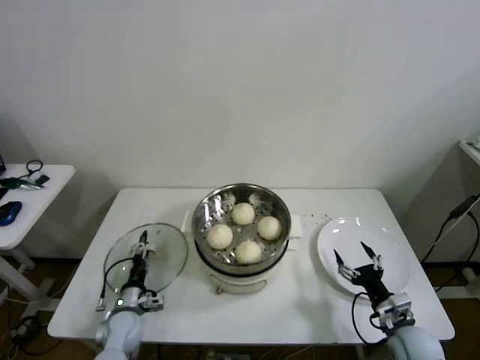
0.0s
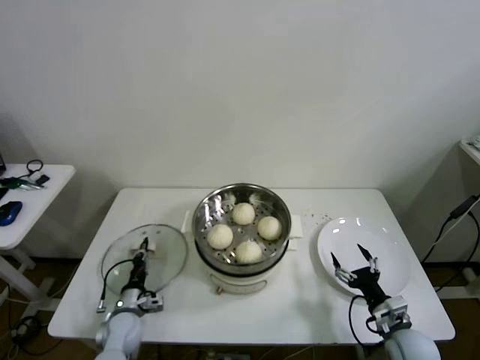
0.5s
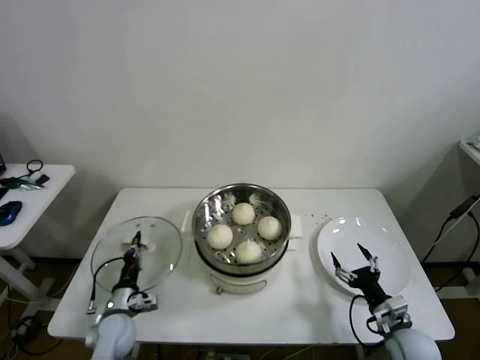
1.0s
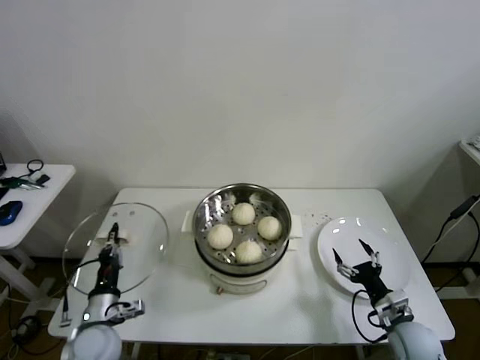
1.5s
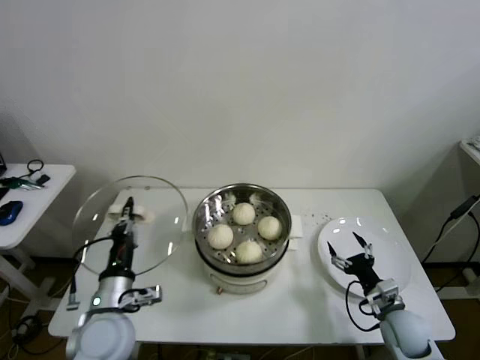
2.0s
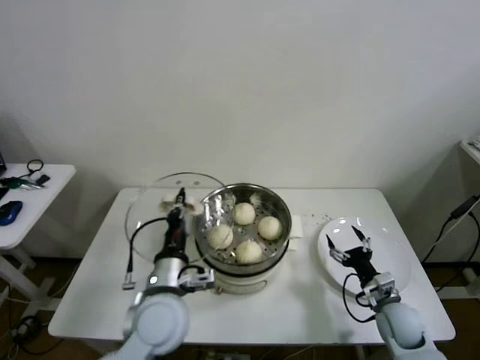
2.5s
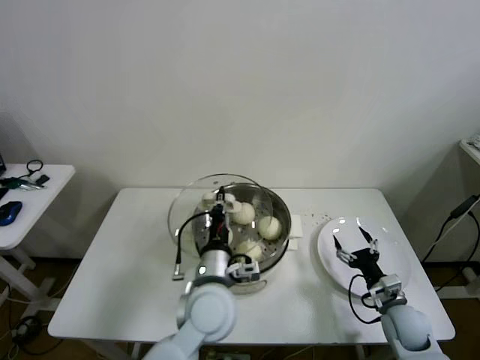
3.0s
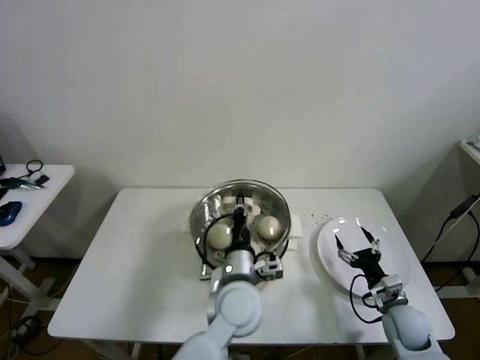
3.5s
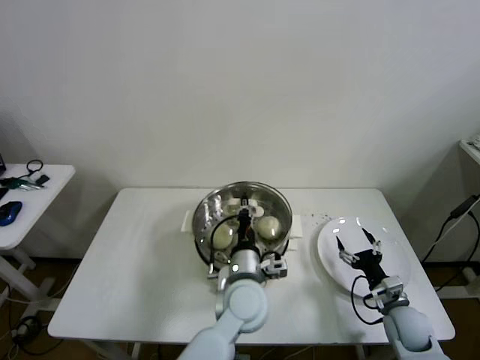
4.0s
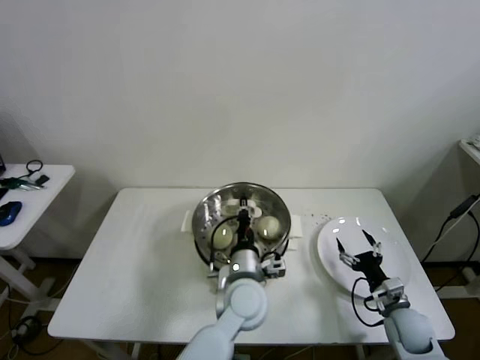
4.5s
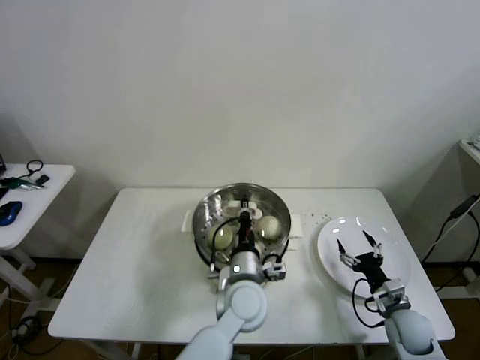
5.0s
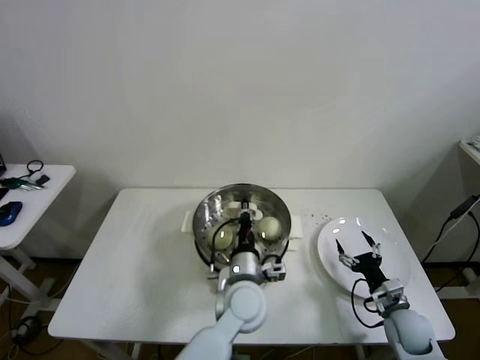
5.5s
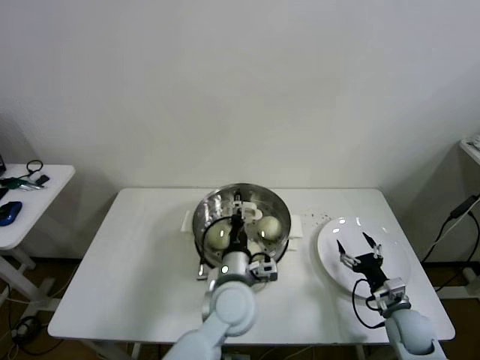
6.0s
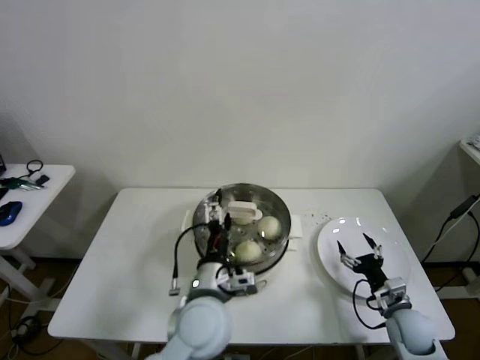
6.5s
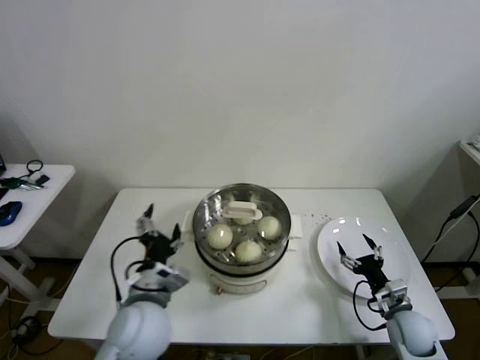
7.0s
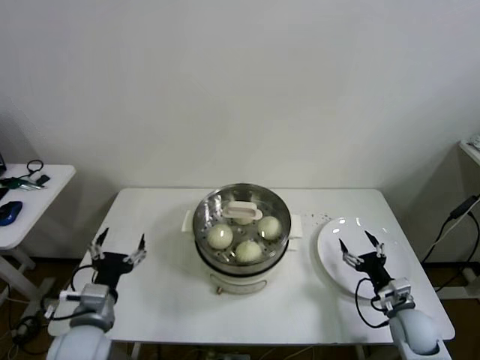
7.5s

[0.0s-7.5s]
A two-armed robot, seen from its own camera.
Step, 1.0s to 5.5s: Place the pot lid on the steamer with left gripper.
0.0s to 2.0s: The left gripper goes some 20 cm upward, and closes.
2.0s to 4.0s: The left gripper is displaced to the right by roughly 25 cm.
4.0s to 5.5s: The grippers stay close to where they were, moving slightly.
5.5s to 7.5s: The left gripper shifts some 30 cm to the left, and opens its fingers.

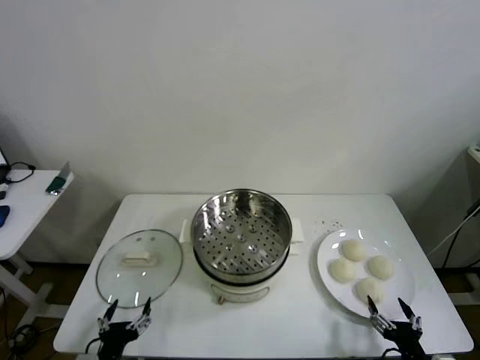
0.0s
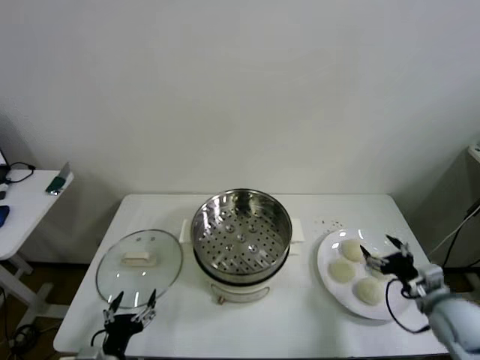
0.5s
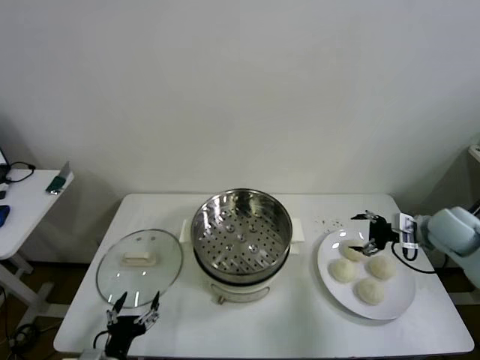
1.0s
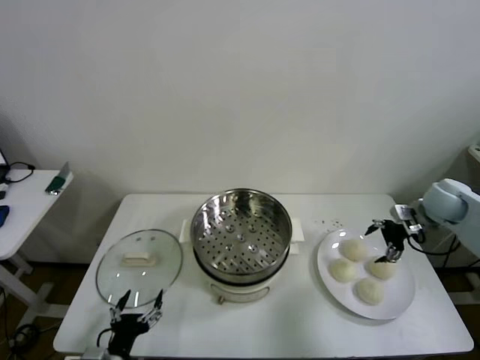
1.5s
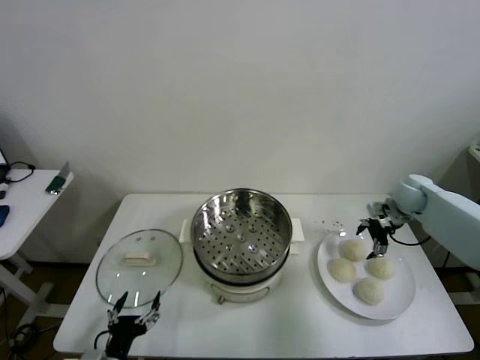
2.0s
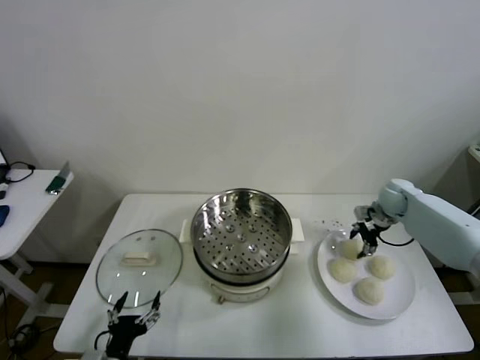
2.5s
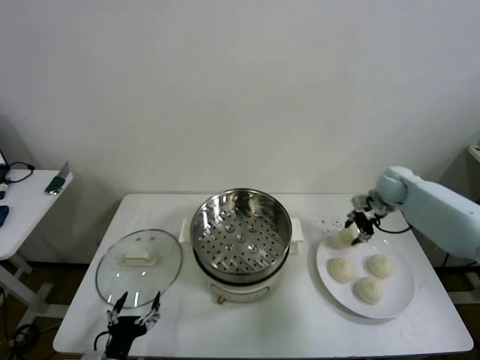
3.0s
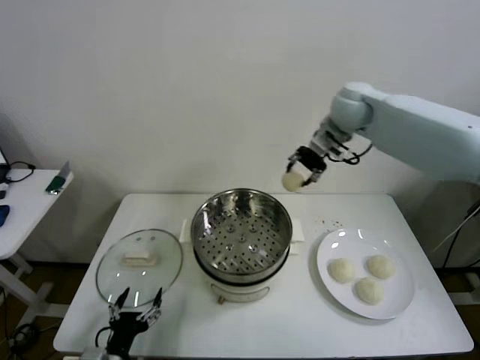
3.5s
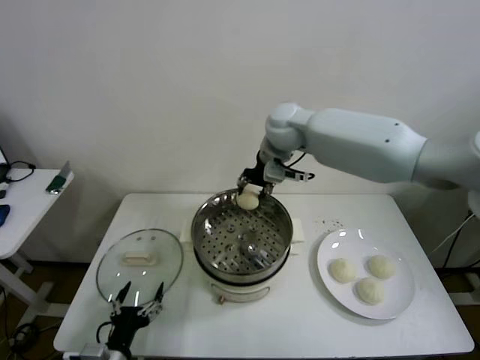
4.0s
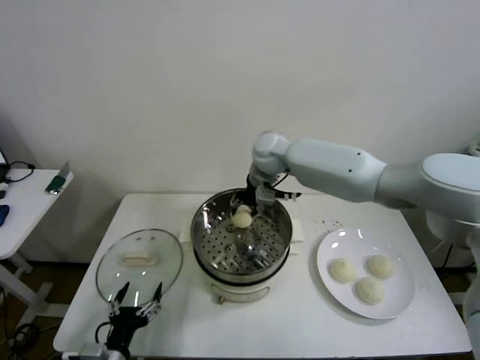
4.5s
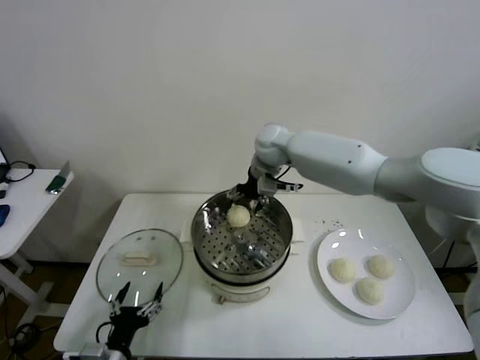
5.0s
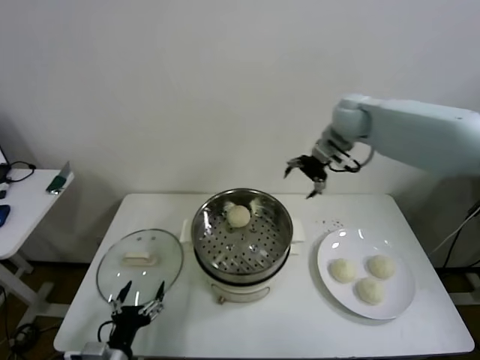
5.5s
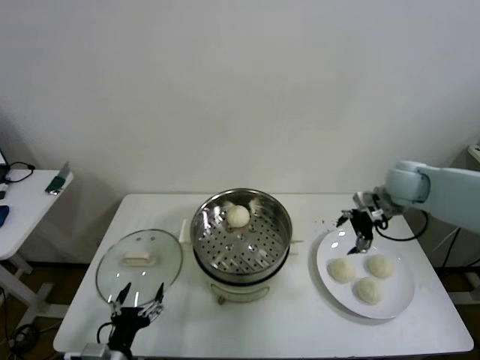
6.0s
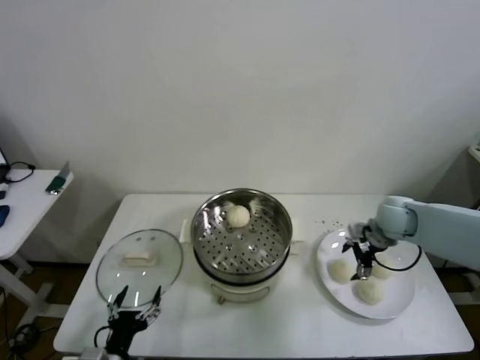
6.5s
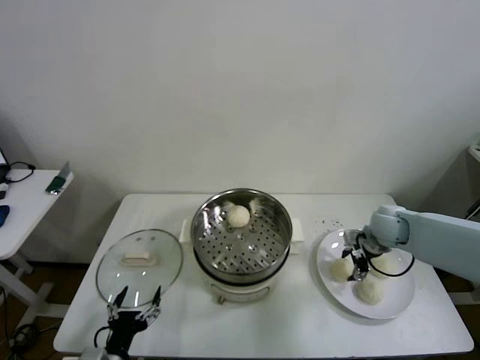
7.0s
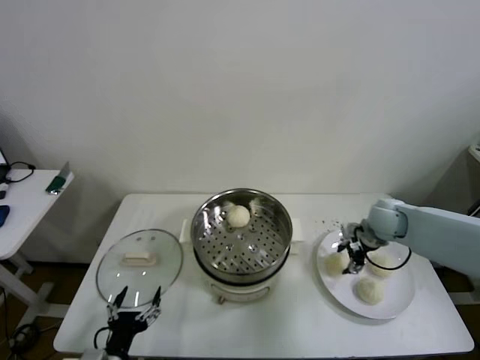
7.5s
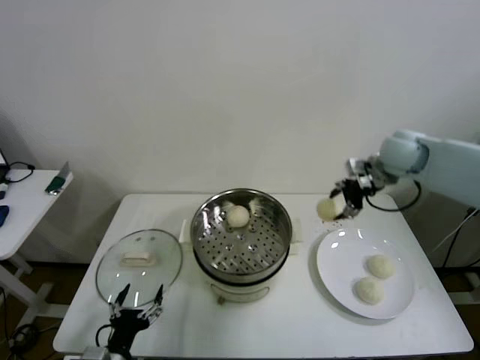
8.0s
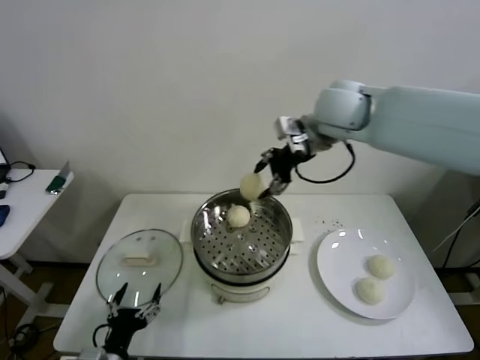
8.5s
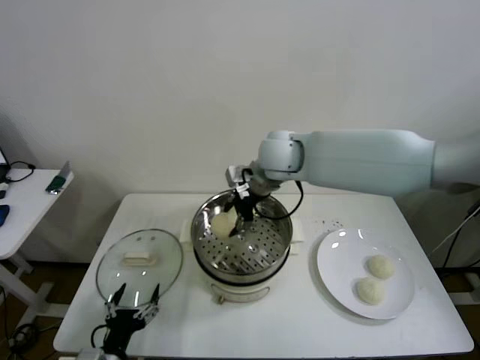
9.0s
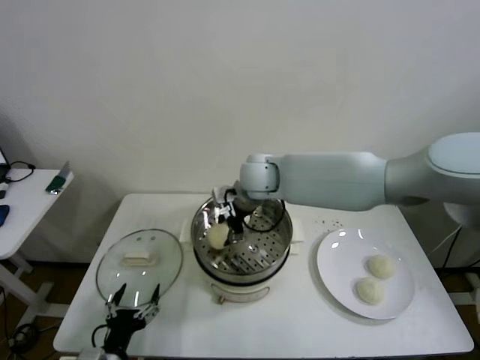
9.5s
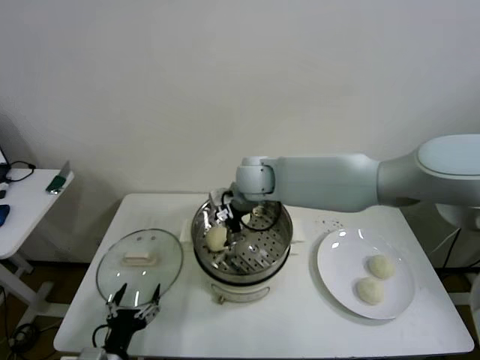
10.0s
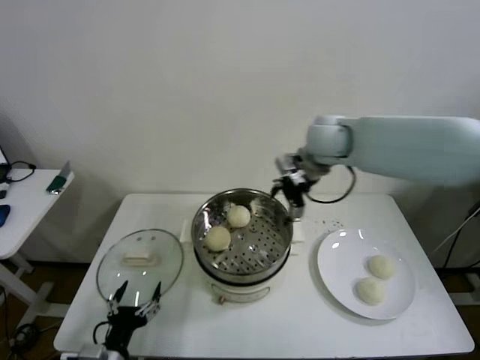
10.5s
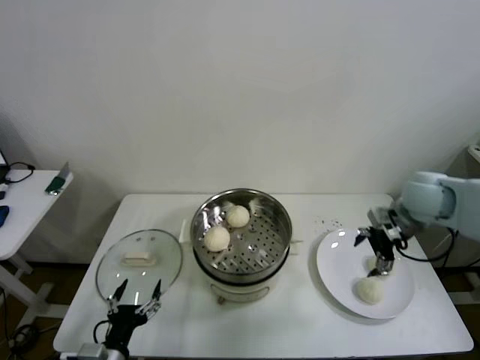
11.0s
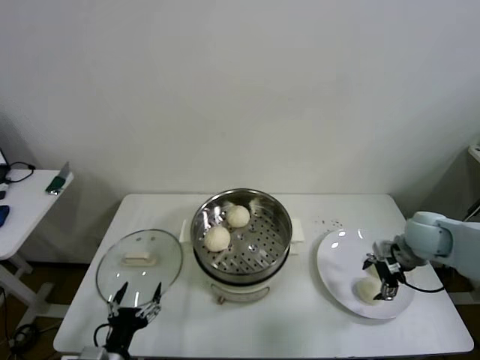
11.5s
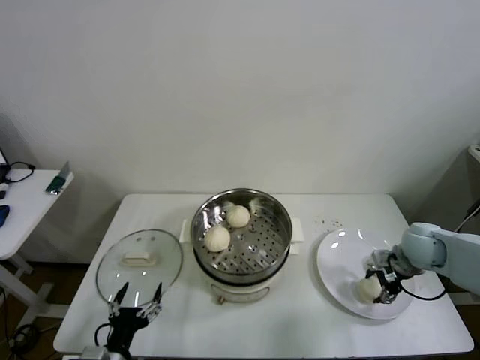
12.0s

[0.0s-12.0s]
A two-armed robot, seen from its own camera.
Step, 0.0s to 2.5s: Grasp the baozi in the plate with right gripper.
Step, 3.0s to 5.0s: Place the baozi on the steamer with right gripper.
Step, 5.5s to 7.0s: Grasp the baozi in the plate with right gripper.
Step, 7.5s to 10.0s: Place the baozi on the steamer with right gripper.
2.0s to 4.0s: The right gripper moves to the left and upward, approximately 40 cm, and closes.
4.0s to 6.0s: The right gripper is displaced to the right by about 25 cm, and opens.
6.0s to 8.0s: The right gripper shifts approximately 5 cm upward, and closes its fingers.
8.0s to 10.0s: The right gripper is displaced to the left by approximately 30 cm, and opens its fingers.
10.0s to 12.0s: The right gripper is displaced to the right by approximately 40 cm, and closes up.

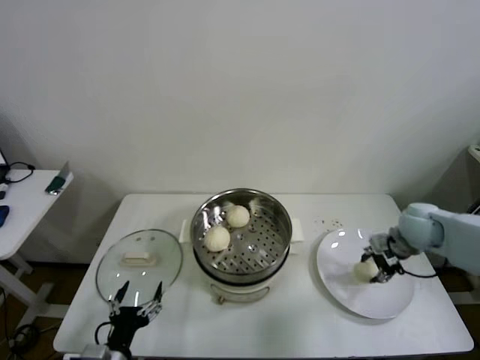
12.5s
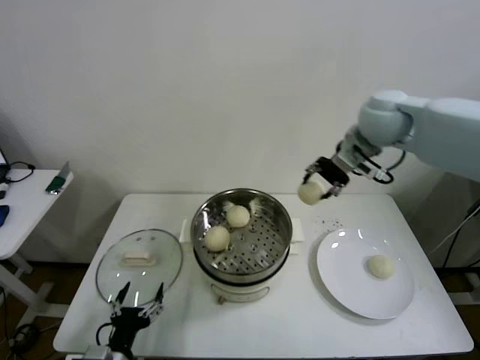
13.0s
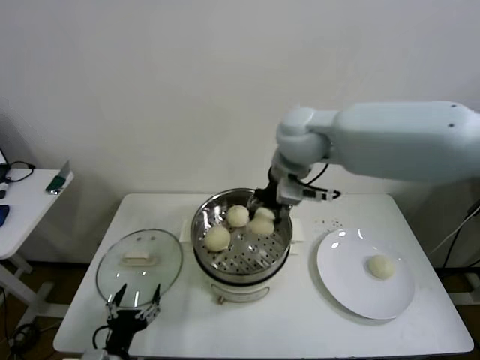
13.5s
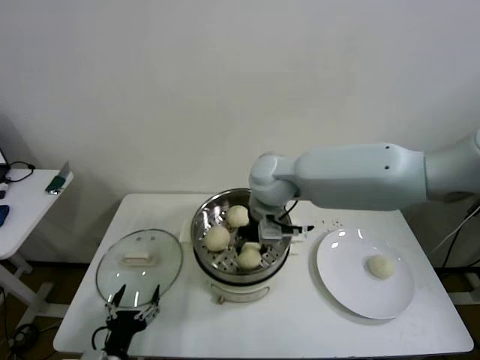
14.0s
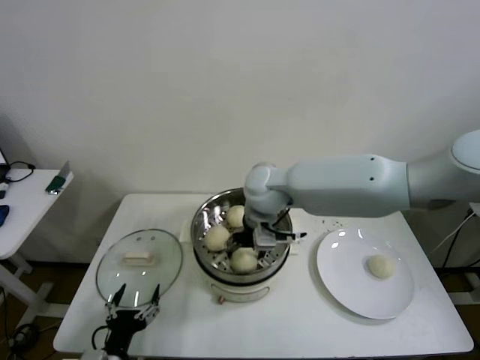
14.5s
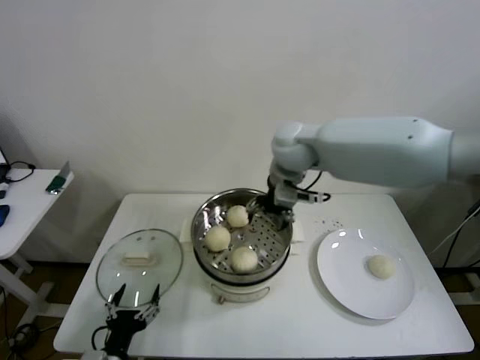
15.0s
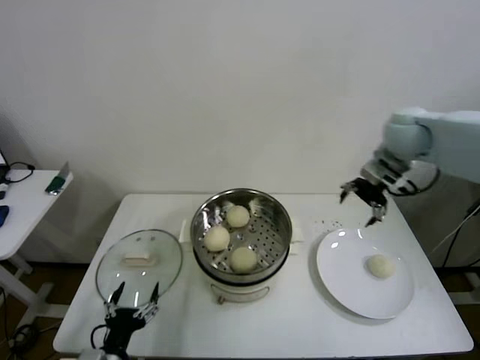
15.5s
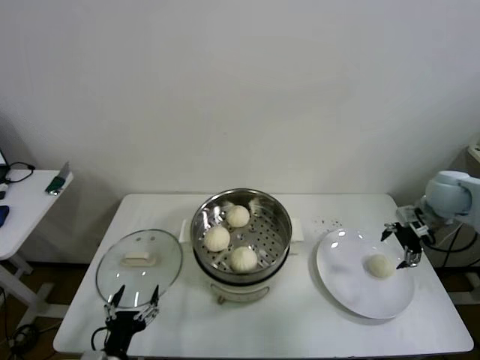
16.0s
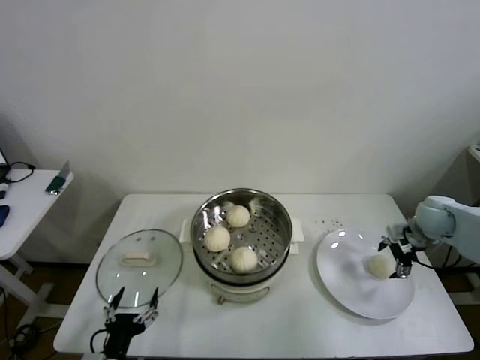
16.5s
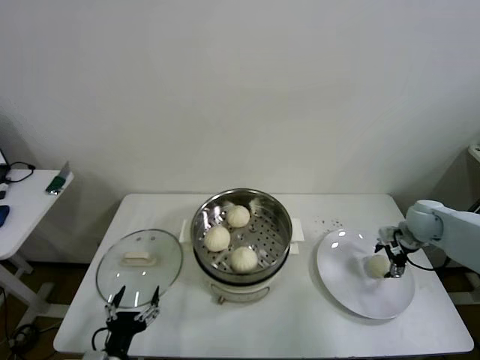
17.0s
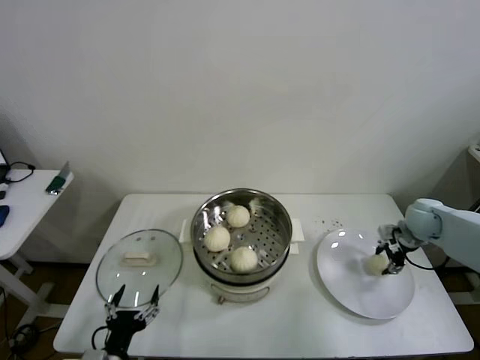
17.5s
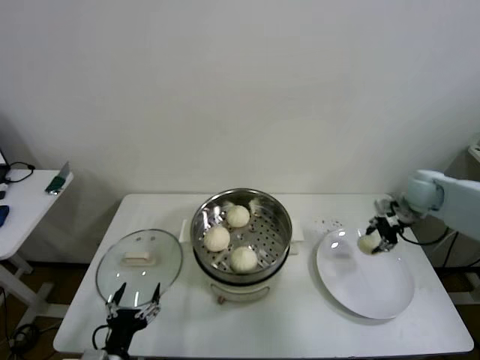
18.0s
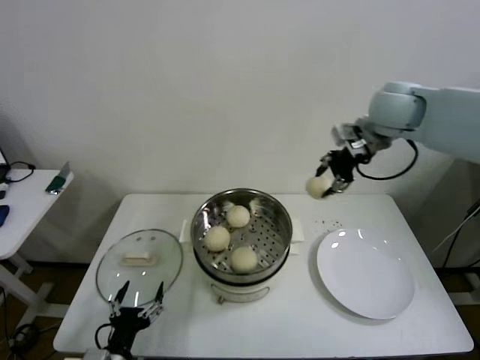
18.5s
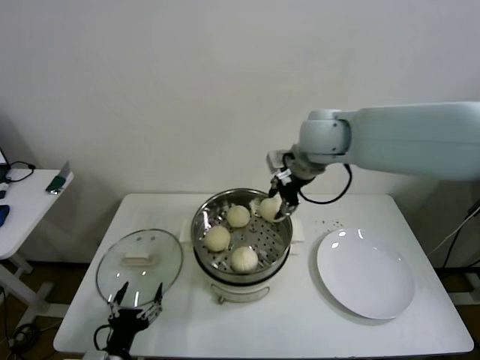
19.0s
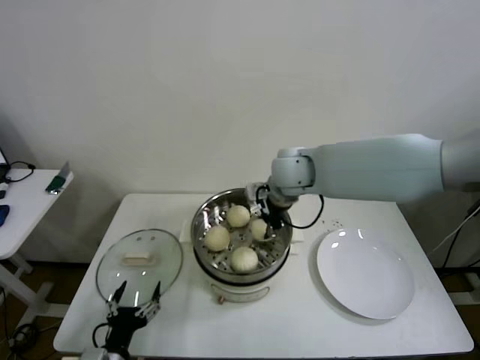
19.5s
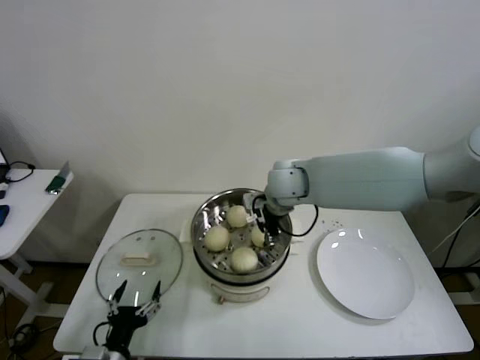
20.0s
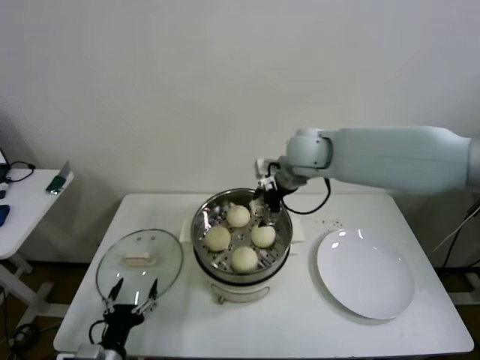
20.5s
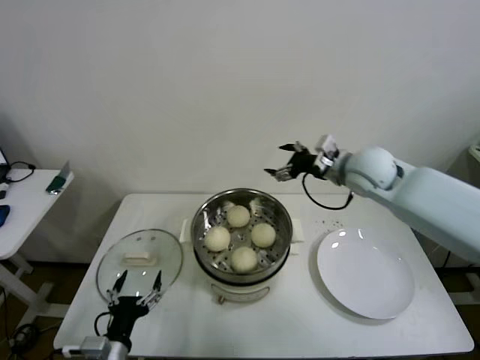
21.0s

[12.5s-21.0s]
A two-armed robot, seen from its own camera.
Step, 12.5s to 14.5s: Place the baozi on the steamer with right gripper.
Step, 15.0s to 17.0s: Grasp the baozi in the plate with right gripper.
Step, 17.5s to 20.0s: Place the baozi on the steamer with right gripper.
12.5s to 14.5s: The right gripper goes some 35 cm to the left, and opens.
14.5s to 16.5s: The right gripper travels to the right by roughly 40 cm, and opens.
16.5s to 19.0s: The right gripper shifts approximately 40 cm to the left and upward, and closes.
19.0s to 21.0s: The right gripper goes roughly 10 cm to the right and downward, and opens up.
